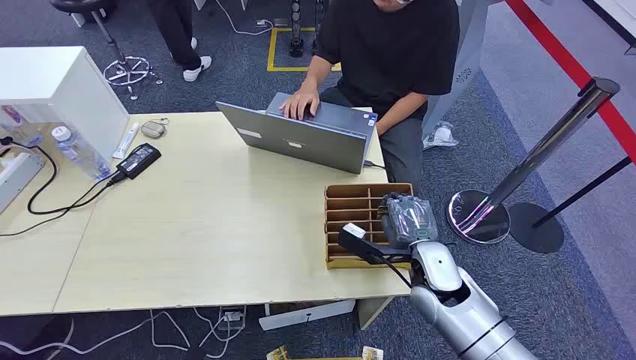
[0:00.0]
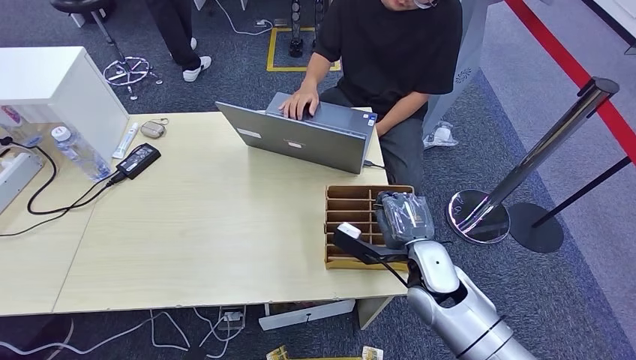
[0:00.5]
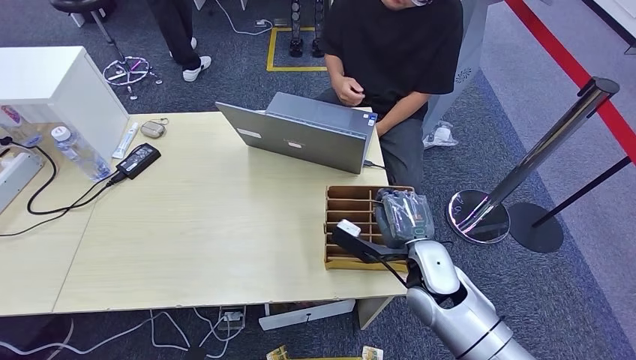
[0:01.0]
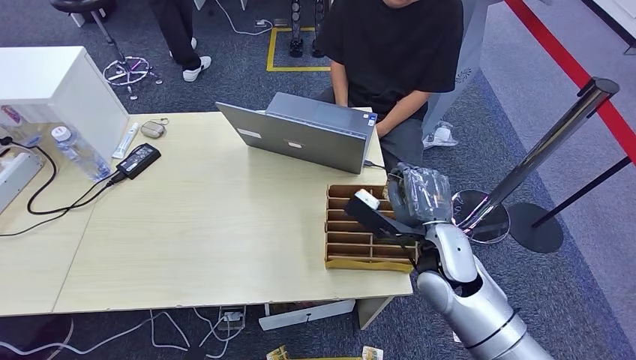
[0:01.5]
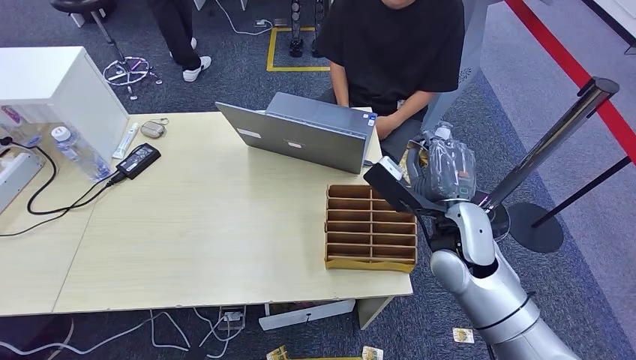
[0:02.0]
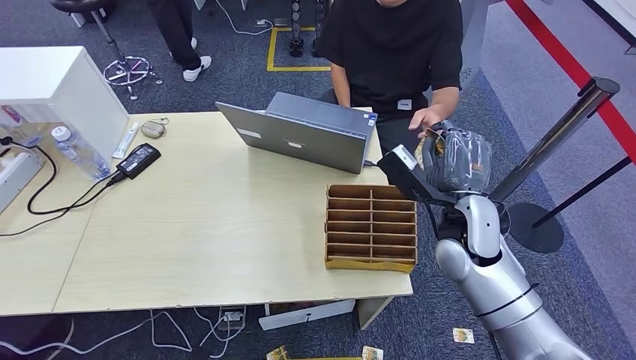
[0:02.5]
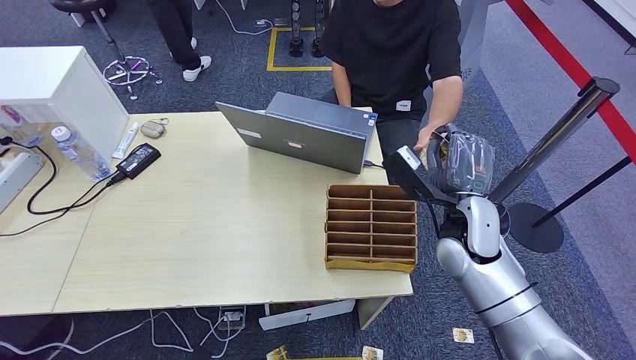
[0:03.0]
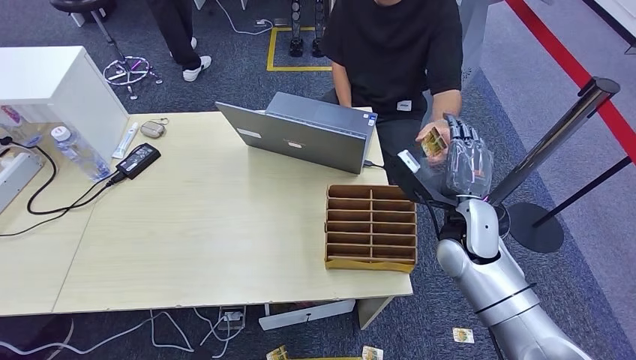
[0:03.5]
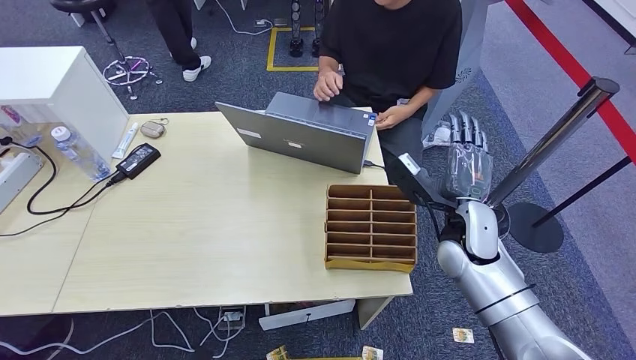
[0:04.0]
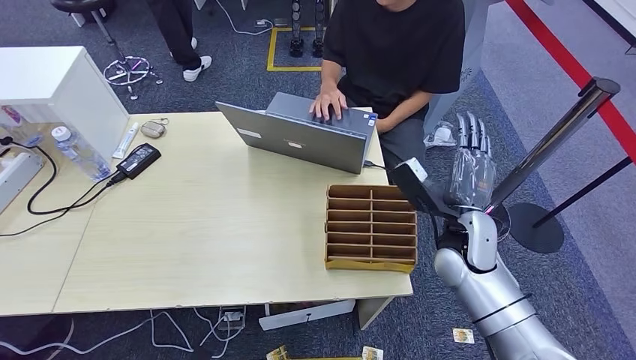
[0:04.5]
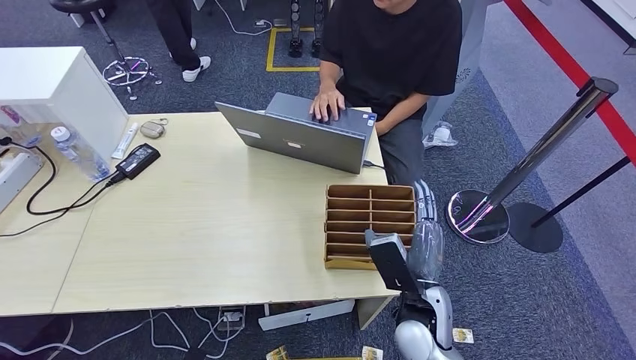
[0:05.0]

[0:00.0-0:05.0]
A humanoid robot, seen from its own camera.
Step, 0:00.0 to 0:01.0: Pick up the room card from the card holder.
Step, 0:01.5 to 0:05.0: Hand the room card to the target.
0:02.5 to 0:05.0: The right hand shifts approximately 15 cm downward, backward and to the left.
